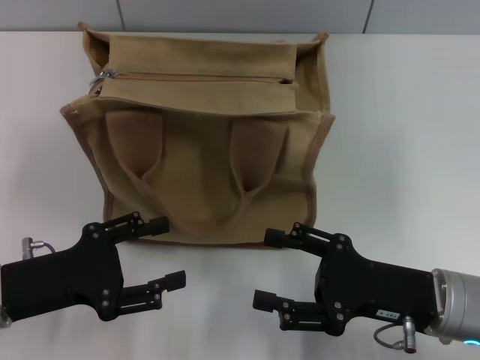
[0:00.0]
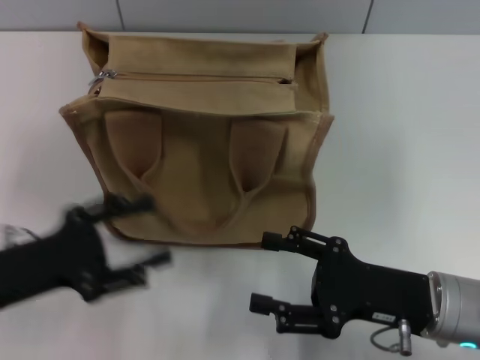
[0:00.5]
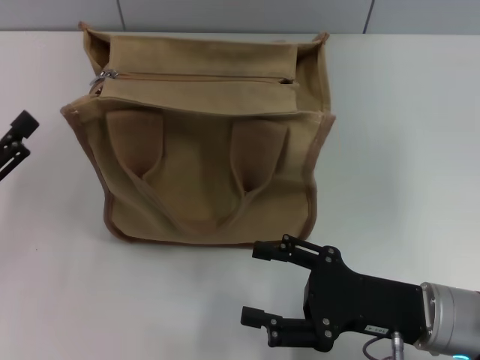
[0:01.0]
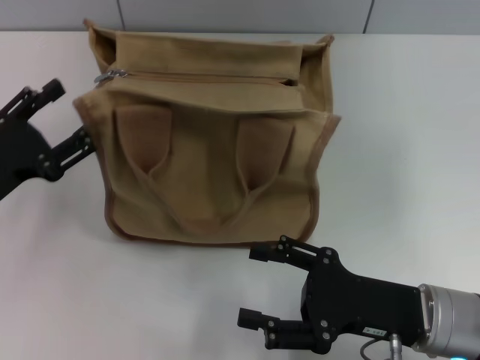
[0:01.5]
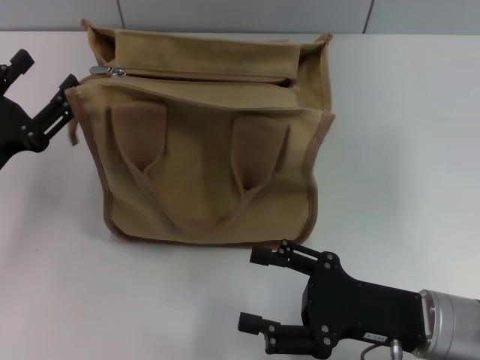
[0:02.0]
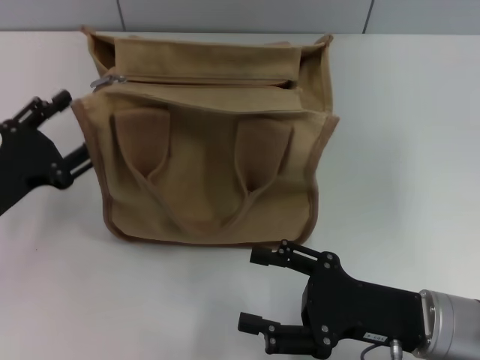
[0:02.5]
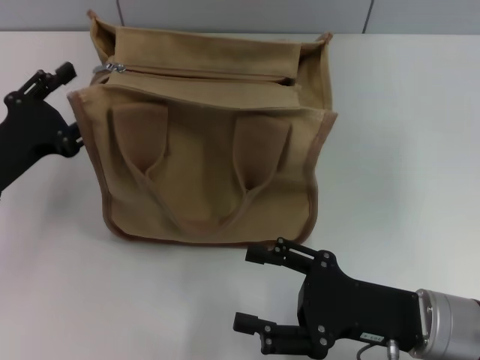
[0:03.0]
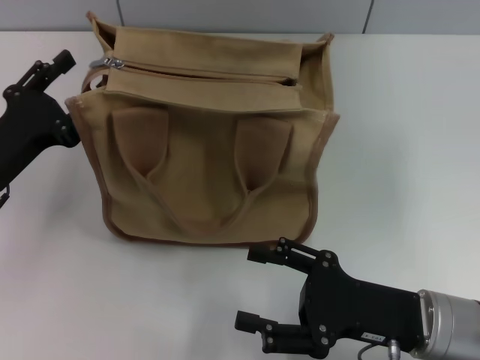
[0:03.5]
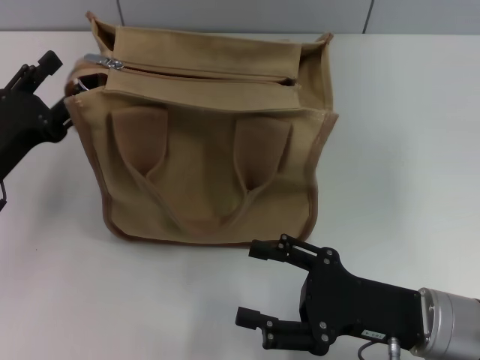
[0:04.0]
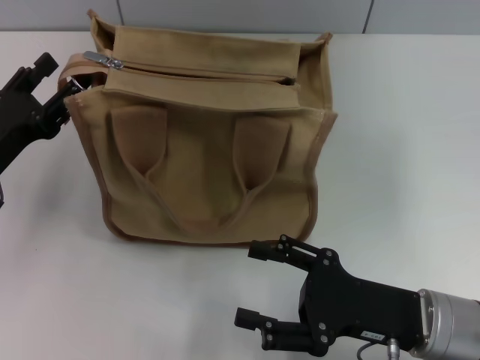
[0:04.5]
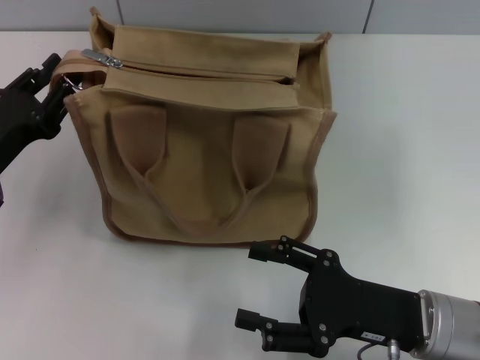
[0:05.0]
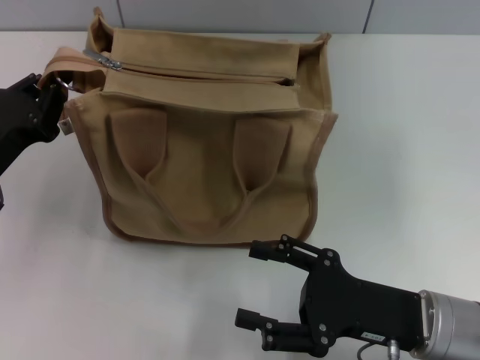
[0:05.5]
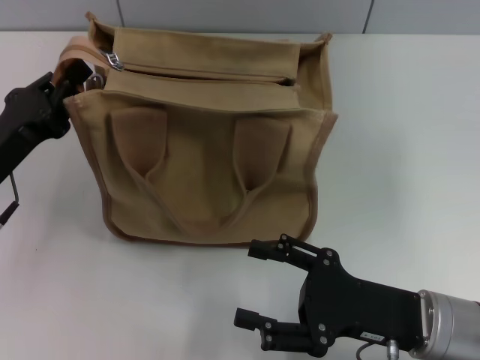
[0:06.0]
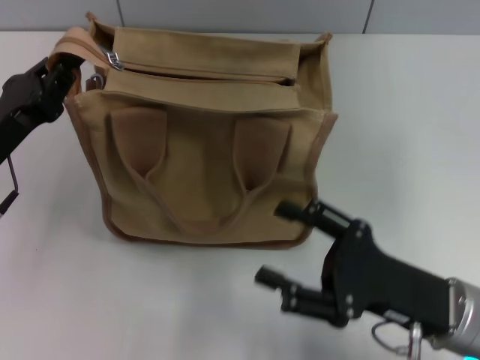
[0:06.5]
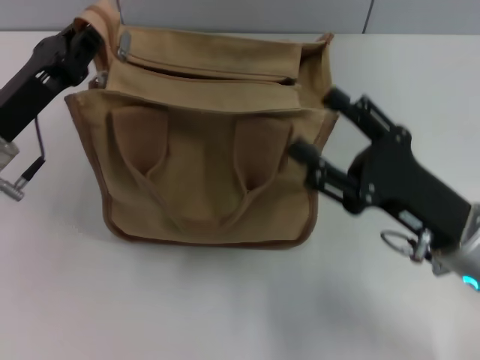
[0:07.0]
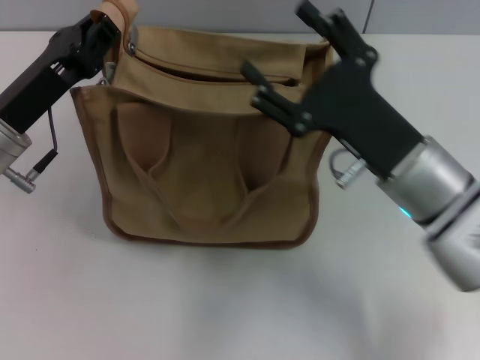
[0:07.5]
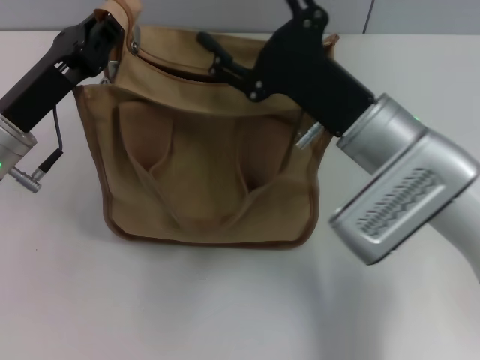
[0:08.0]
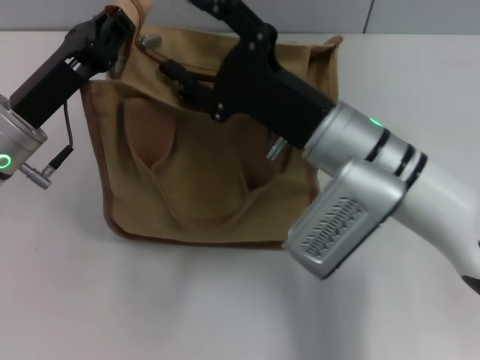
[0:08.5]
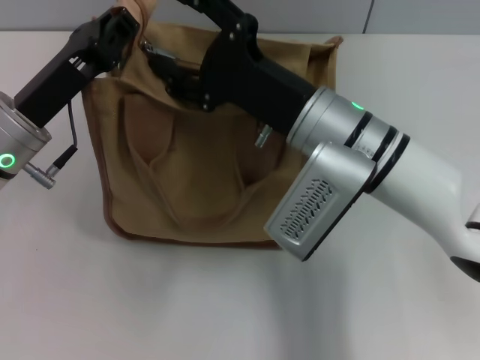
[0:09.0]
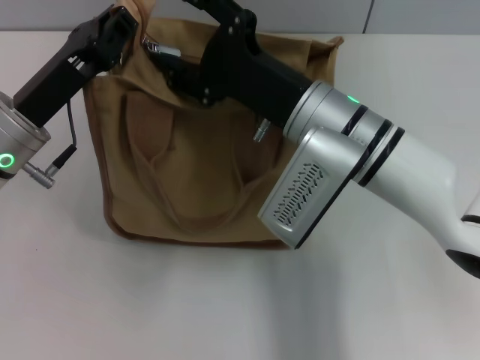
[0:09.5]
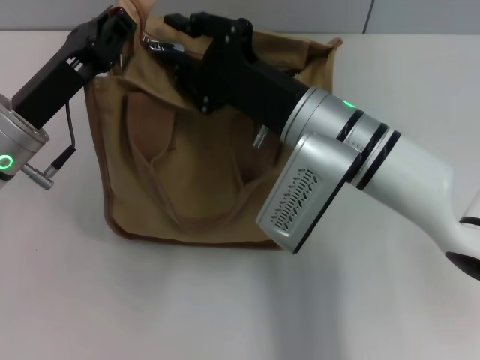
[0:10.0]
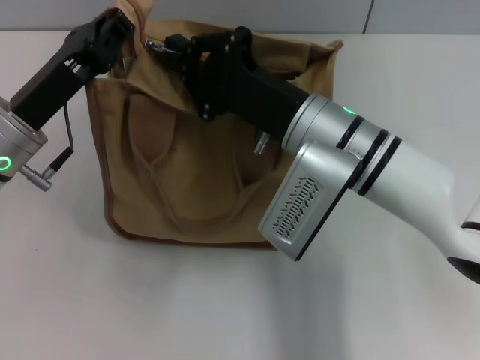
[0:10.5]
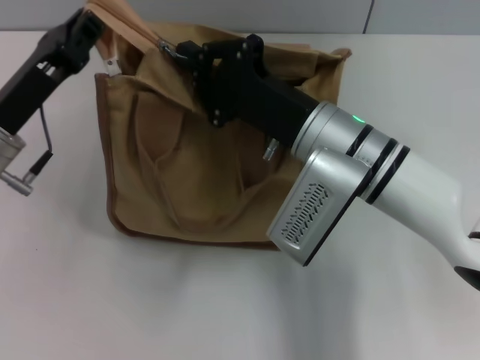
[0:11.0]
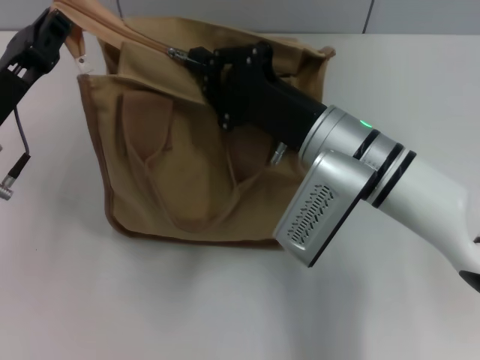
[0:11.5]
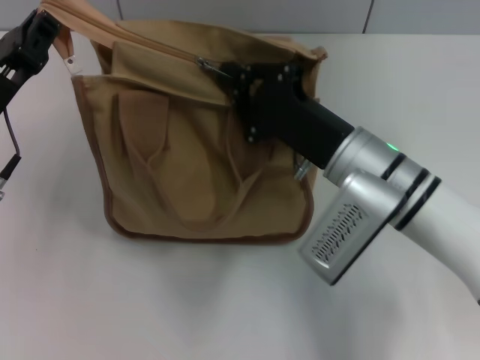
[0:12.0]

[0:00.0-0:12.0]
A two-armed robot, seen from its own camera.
0:00.0 to 0:02.0: The left gripper moves approximately 5 cm.
0:02.0 to 0:04.0: The grippers make only small movements.
0:04.0 to 0:06.0: The left gripper closes its fingers.
0:06.0 to 0:08.0: The right gripper moves forward, upward and to the left, about 15 cm; the left gripper moves about 5 cm.
0:08.0 to 0:10.0: The right gripper closes.
0:10.0 to 0:12.0: The right gripper changes place by some 5 cm, and closes up.

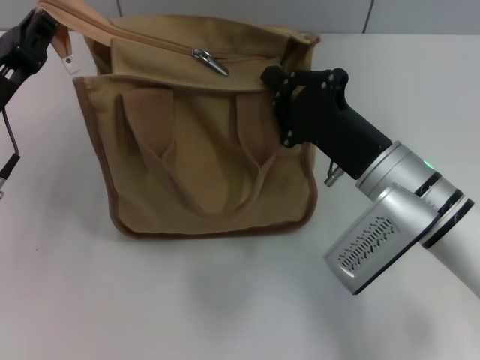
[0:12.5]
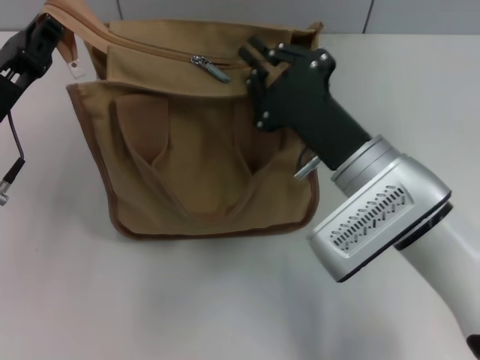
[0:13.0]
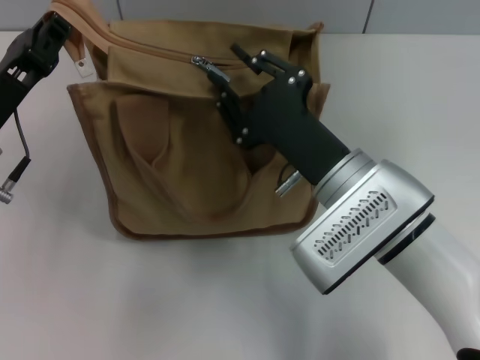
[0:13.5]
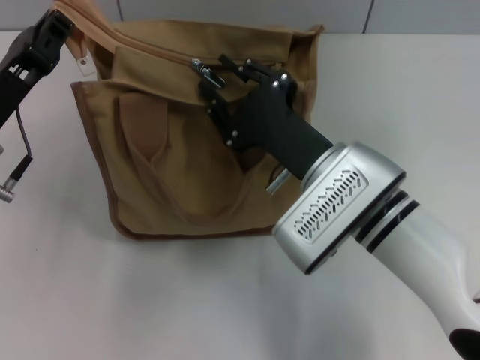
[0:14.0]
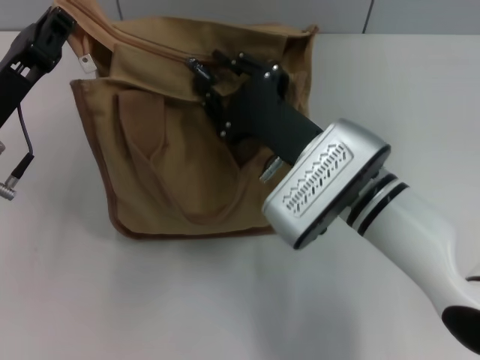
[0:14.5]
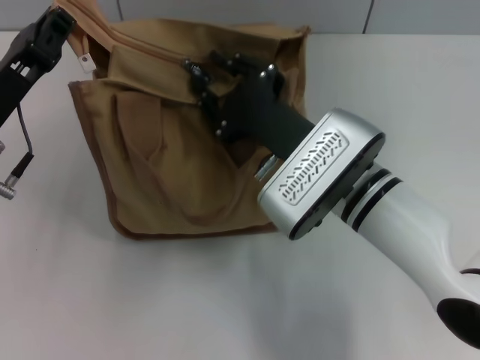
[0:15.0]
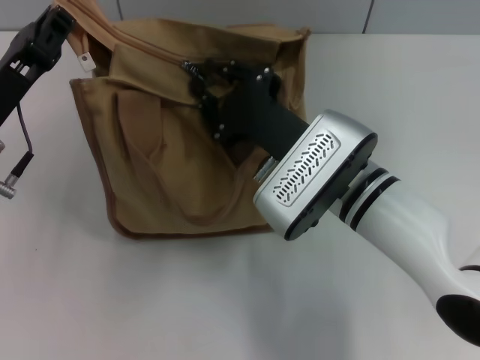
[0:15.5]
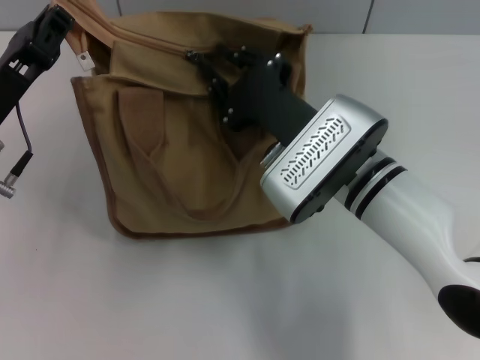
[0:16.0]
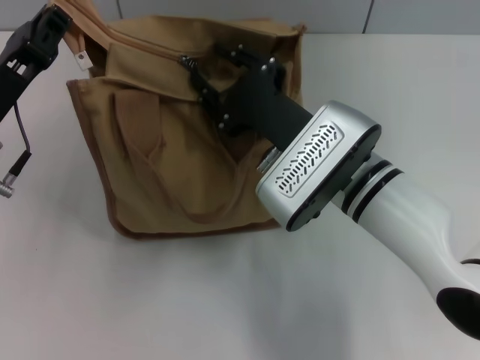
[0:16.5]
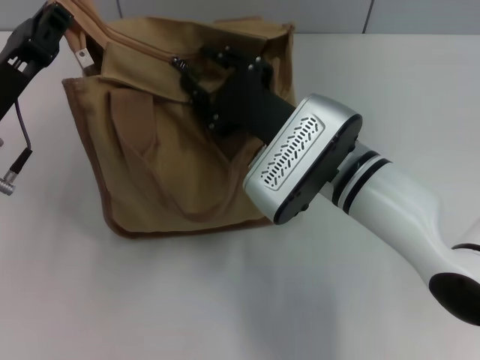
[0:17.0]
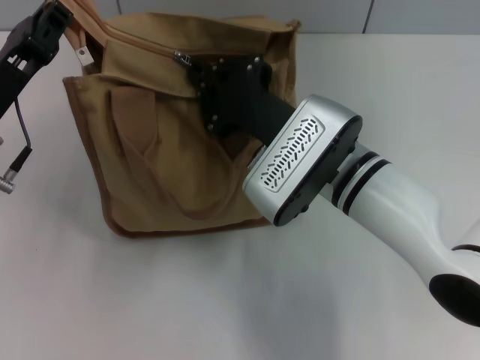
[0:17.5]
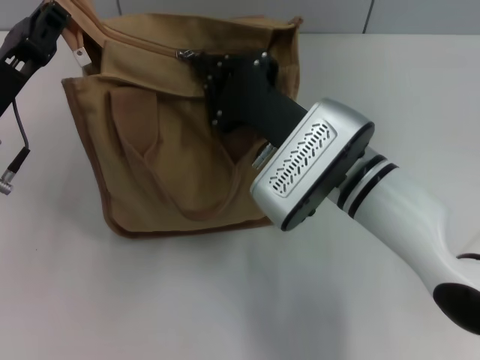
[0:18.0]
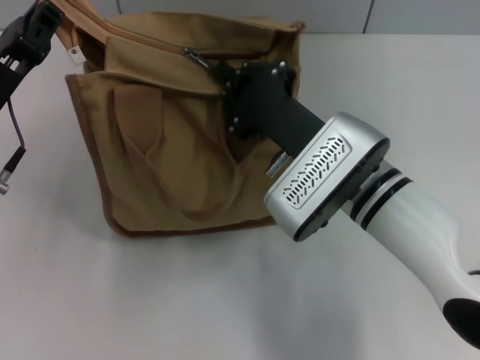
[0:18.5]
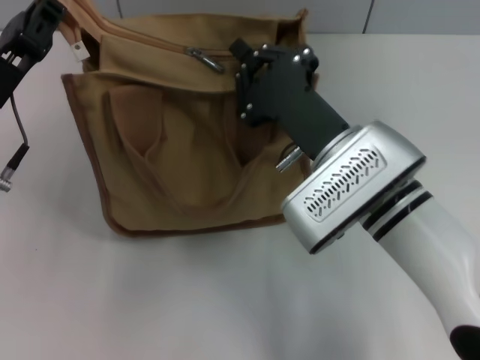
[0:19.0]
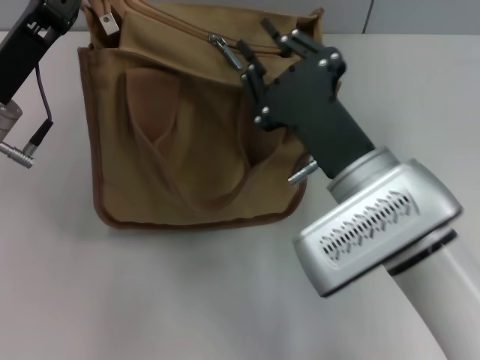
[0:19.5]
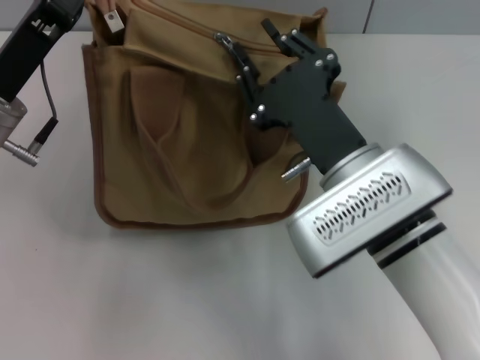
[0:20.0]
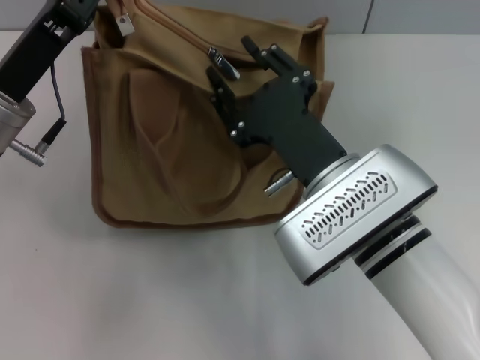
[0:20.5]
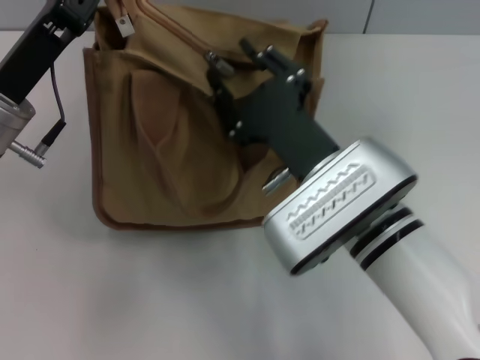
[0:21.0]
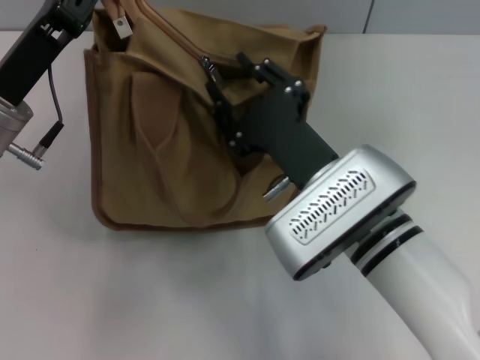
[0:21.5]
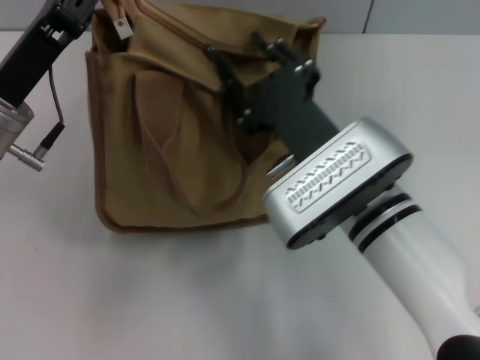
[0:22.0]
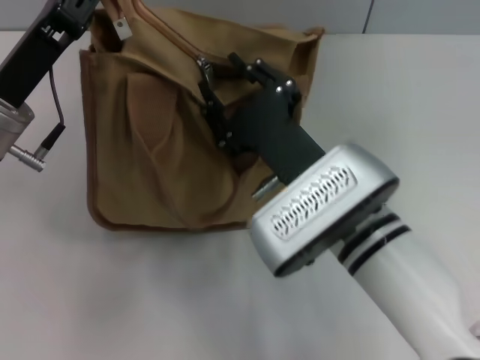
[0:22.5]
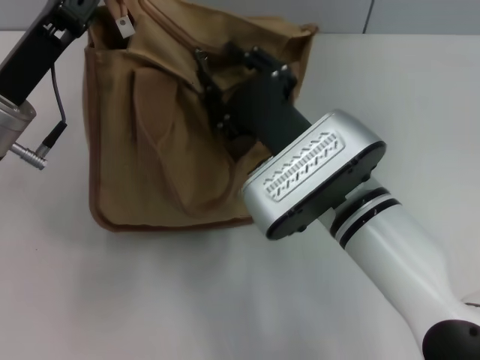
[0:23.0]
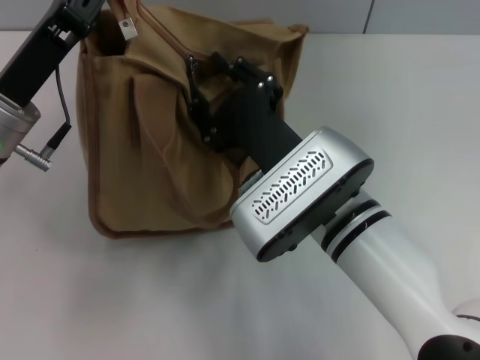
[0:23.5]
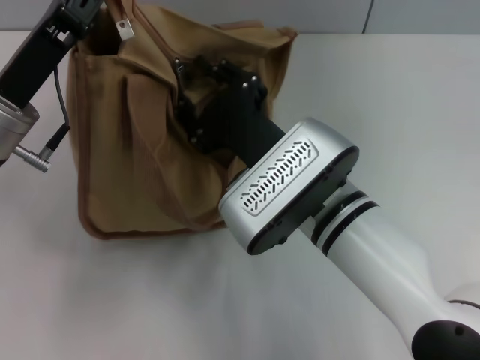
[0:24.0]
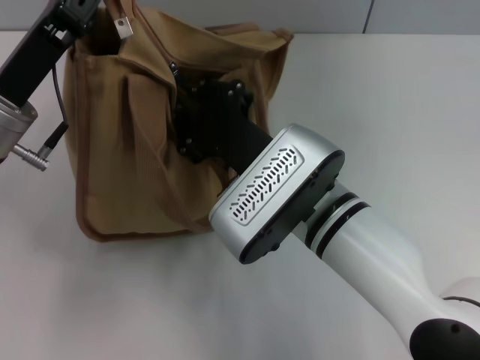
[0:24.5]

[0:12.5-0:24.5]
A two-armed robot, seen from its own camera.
0:12.5 to 0:14.5: The right gripper travels to the left by about 5 cm, and opens.
0:14.5 to 0:16.5: Neither gripper changes place.
0:16.5 to 0:18.5: The right gripper closes.
0:18.5 to 0:20.5: The right gripper moves backward, some 5 cm, and opens its fingers.

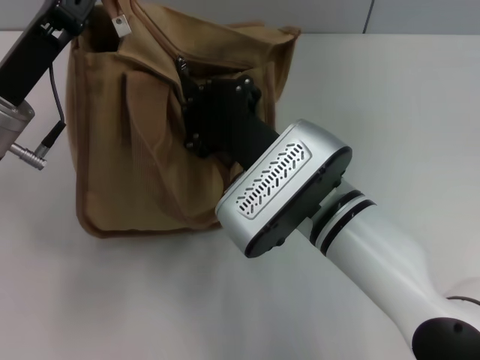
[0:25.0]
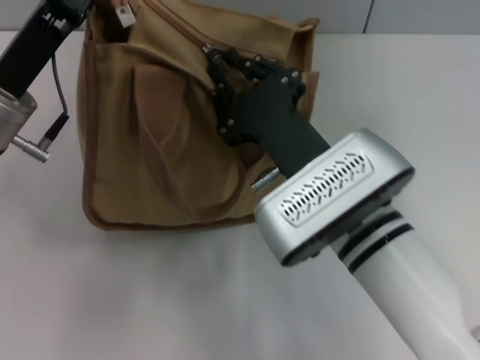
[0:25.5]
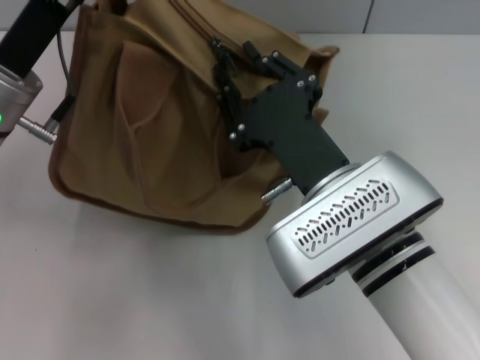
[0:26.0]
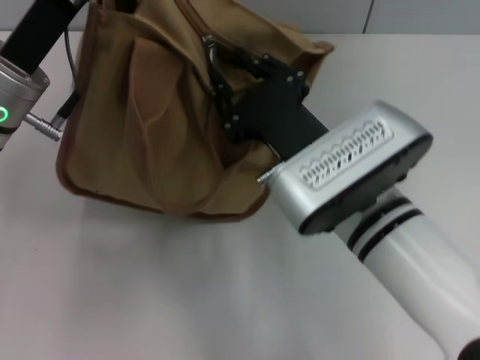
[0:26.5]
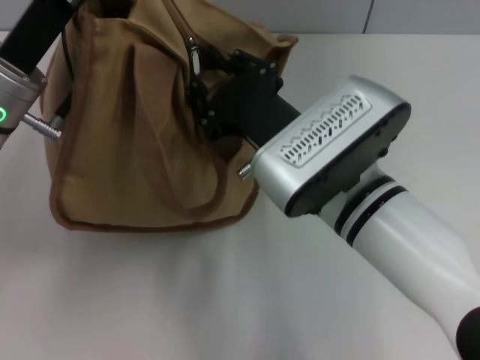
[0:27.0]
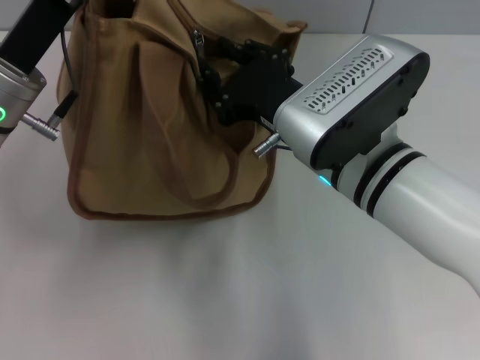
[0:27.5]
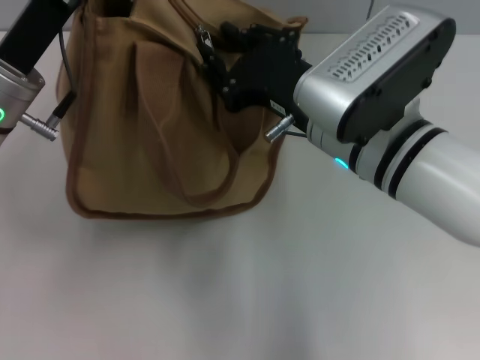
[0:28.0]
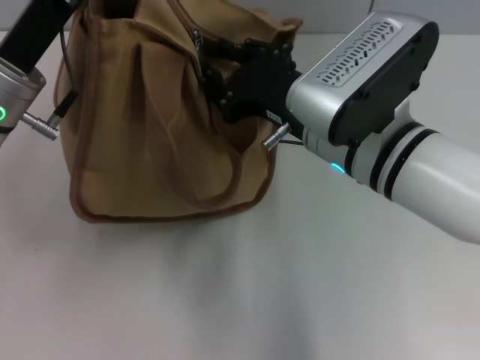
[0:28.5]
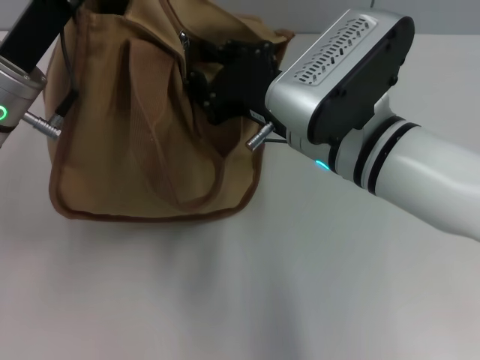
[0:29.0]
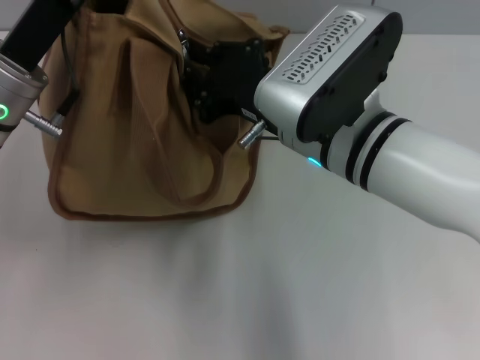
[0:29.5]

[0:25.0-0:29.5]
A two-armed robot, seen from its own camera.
0:25.0 to 0:27.0: The right gripper opens up.
